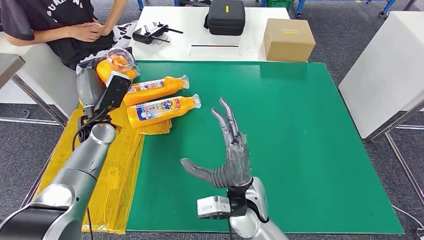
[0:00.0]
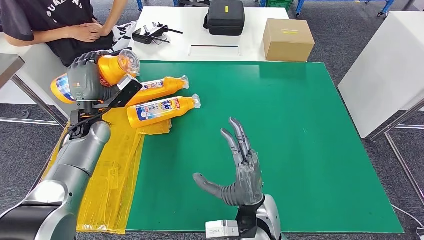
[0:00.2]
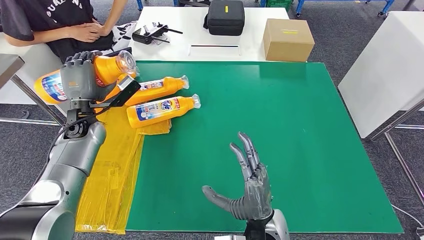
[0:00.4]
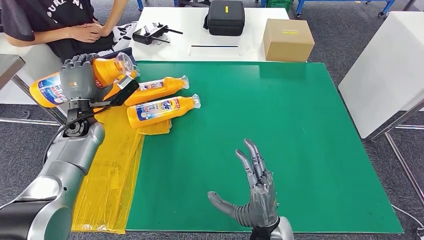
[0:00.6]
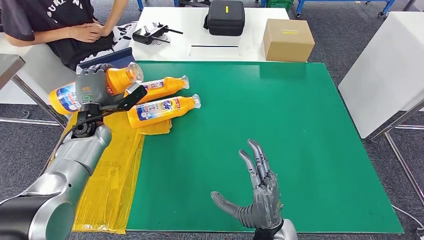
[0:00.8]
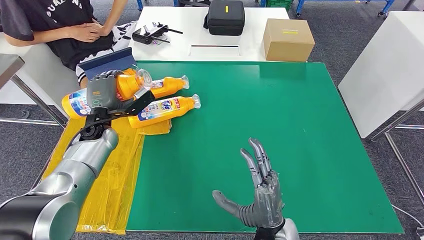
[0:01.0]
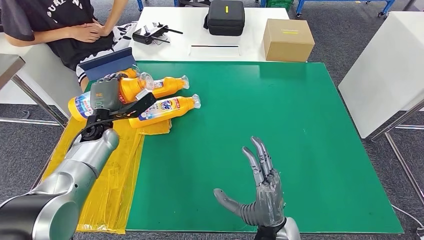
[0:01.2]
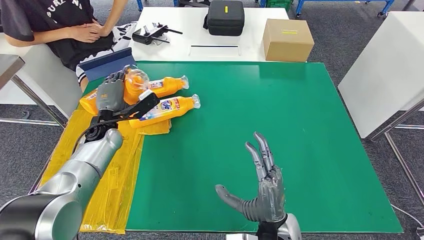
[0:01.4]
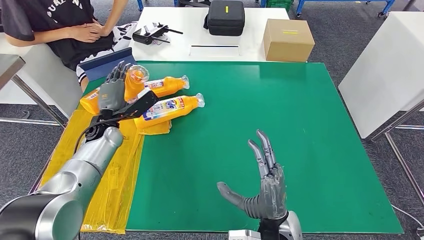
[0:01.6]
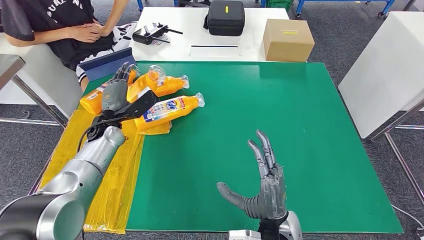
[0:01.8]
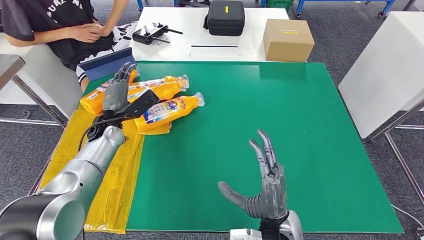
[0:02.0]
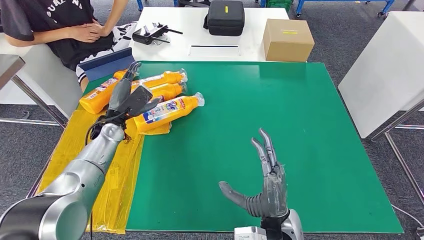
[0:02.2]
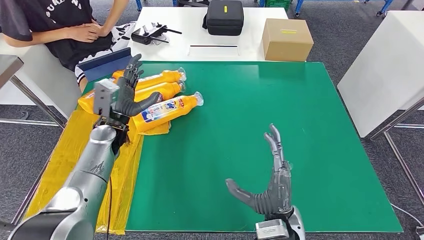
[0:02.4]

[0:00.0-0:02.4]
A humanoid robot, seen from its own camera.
Step, 0:00.0 to 0:02.4: Flip the fast-moving consumer goods bottle to the front side.
0:00.0 to 0:01.2: The right hand heads backward and to the right, covering about 10 cm.
